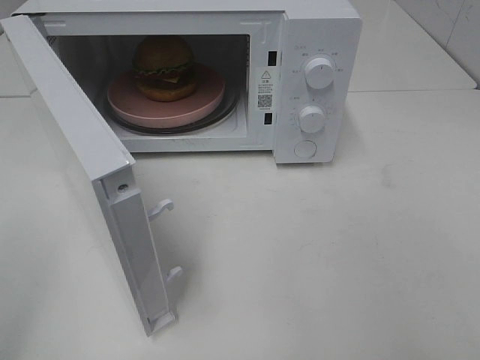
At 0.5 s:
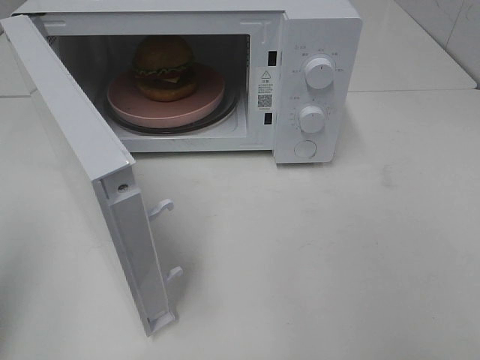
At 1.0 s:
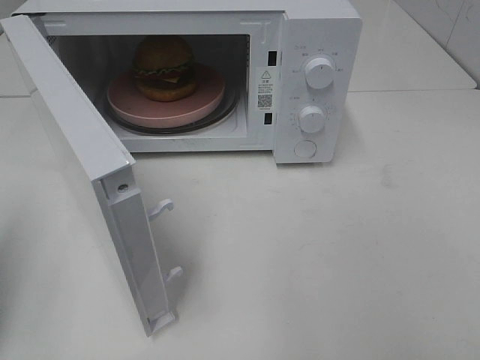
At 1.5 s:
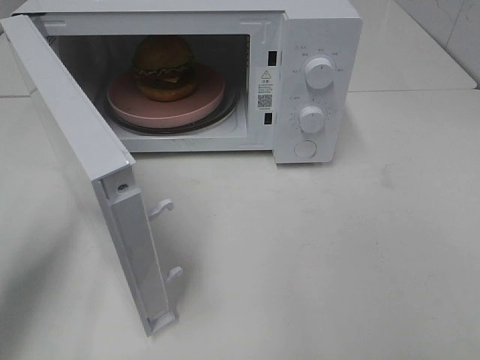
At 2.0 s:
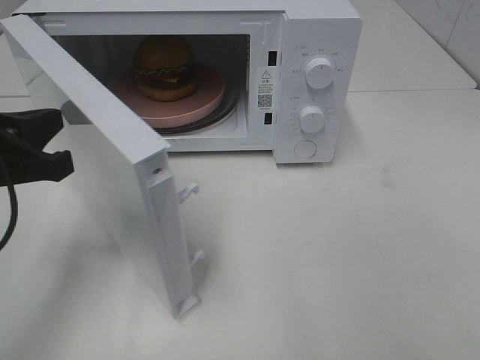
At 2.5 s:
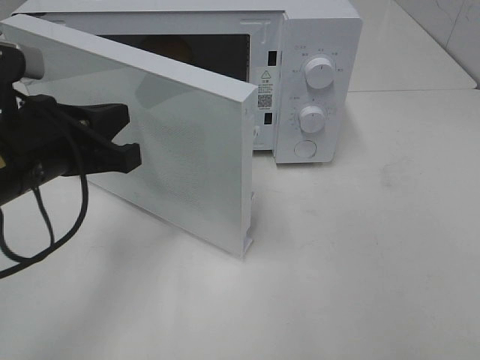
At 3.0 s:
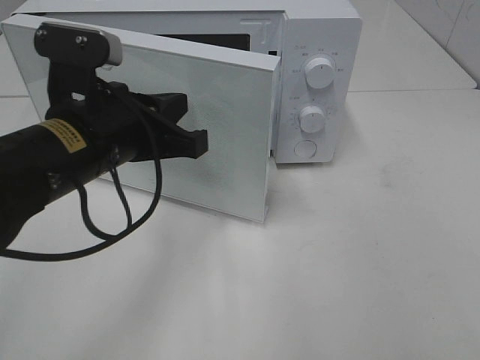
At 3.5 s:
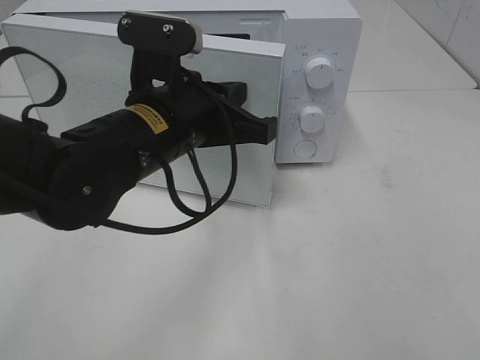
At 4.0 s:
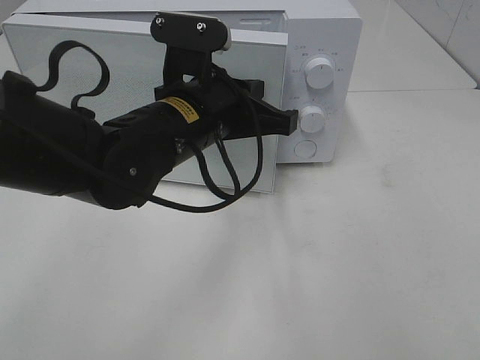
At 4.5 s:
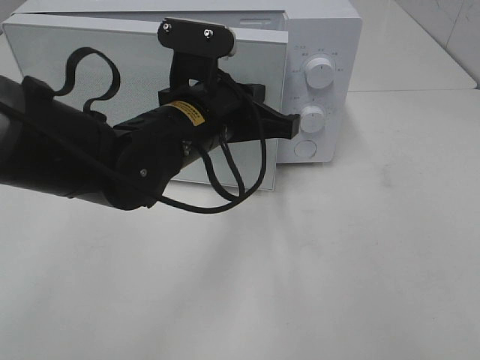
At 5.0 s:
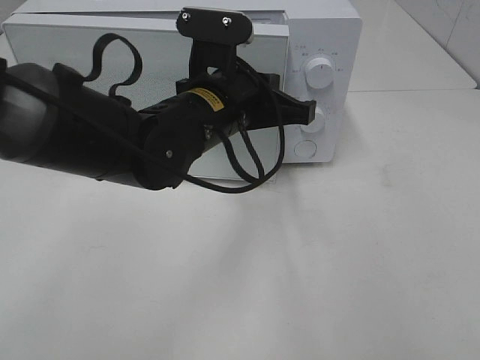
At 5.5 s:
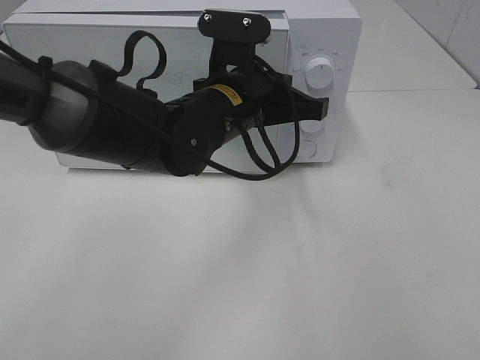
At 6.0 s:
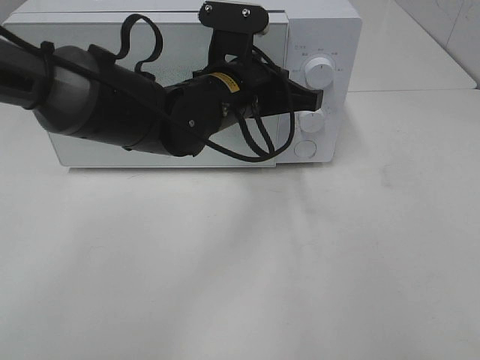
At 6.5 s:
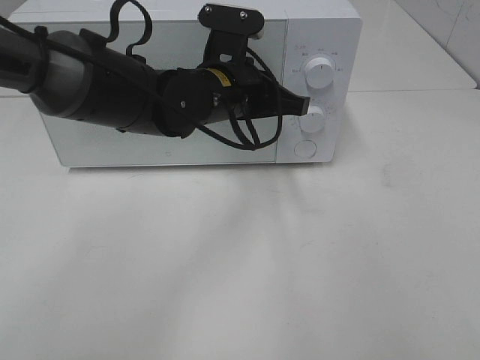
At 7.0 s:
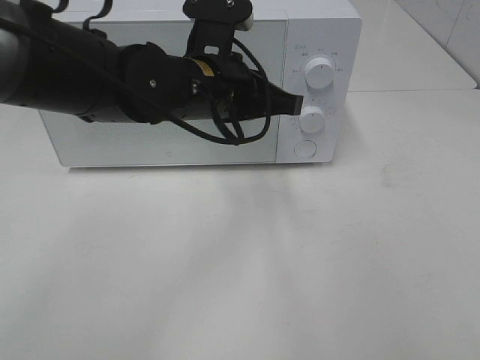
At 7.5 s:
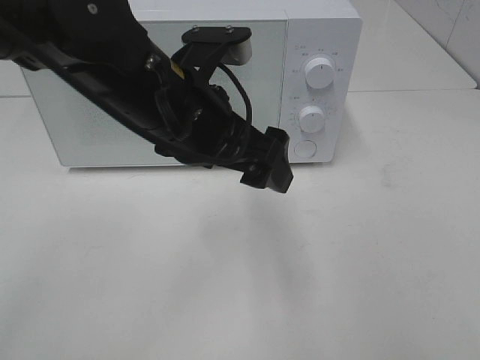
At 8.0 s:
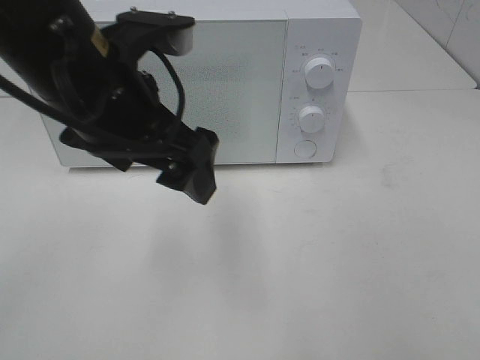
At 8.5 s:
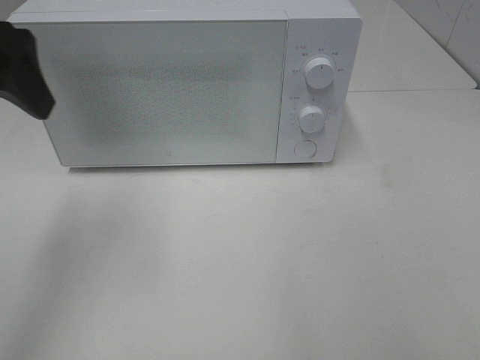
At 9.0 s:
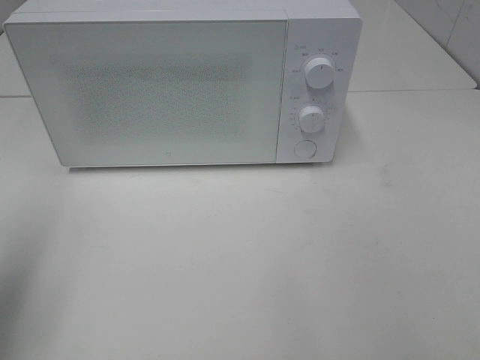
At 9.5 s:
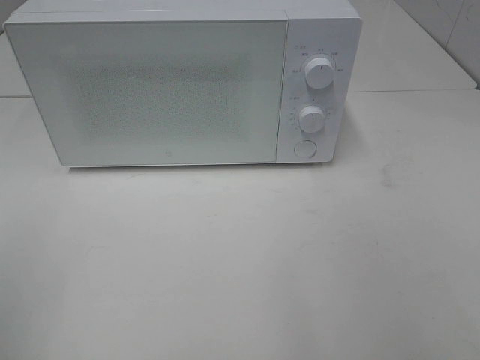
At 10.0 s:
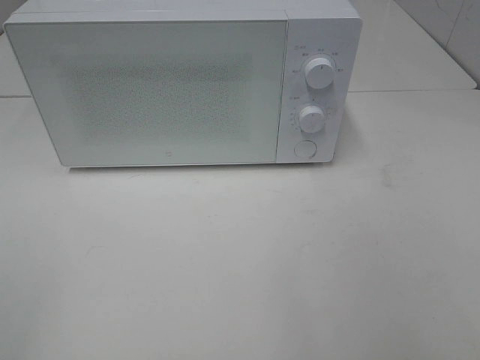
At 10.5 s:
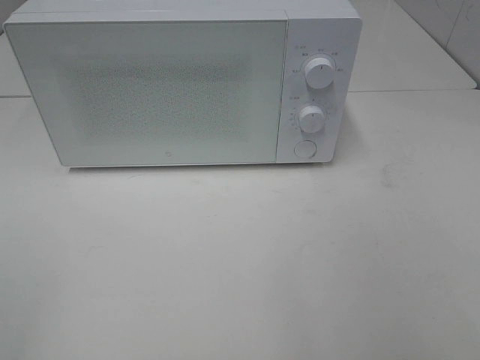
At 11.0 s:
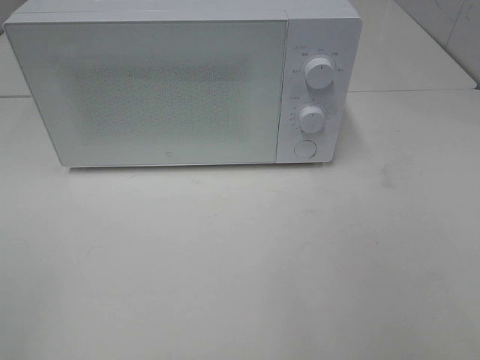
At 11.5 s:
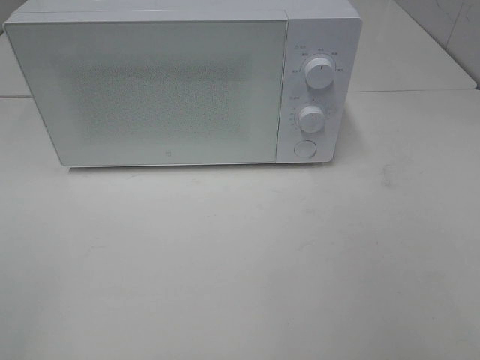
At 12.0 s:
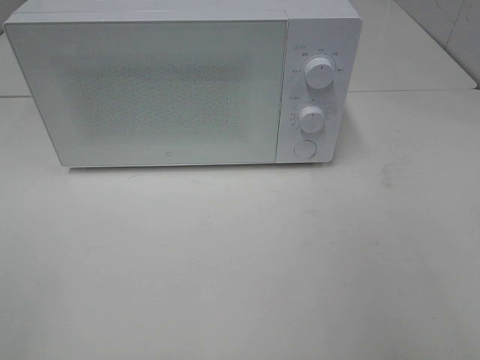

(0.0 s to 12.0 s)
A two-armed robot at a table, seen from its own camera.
Task of the whole recording: Heat the burger.
Step, 0.0 s - 7.0 s: Left hand: close the microwave door.
0.0 s - 2.0 s: The left gripper heads forward, downward and to the right, covering about 20 cm, and closes up.
2.0 s - 4.0 s: The left gripper heads to the right, covering about 20 cm.
4.0 s - 6.0 s: The left gripper goes approximately 5 cm forward.
6.0 s - 8.0 s: The left gripper moves to the left, backward and upward, about 15 cm, and opens up.
8.0 s - 10.0 s: The left gripper heads backward and to the left, covering approximately 35 cm.

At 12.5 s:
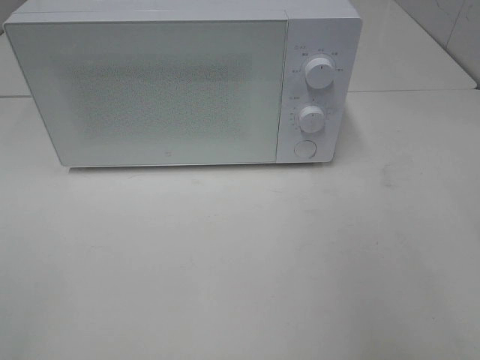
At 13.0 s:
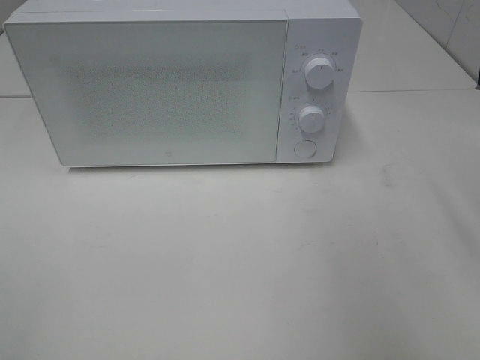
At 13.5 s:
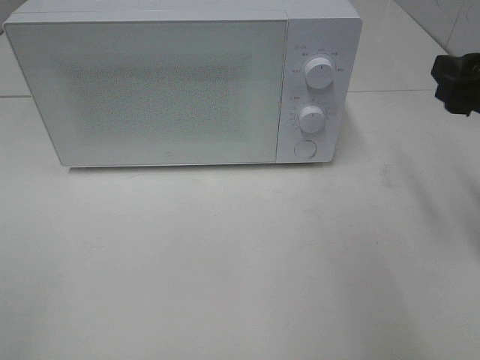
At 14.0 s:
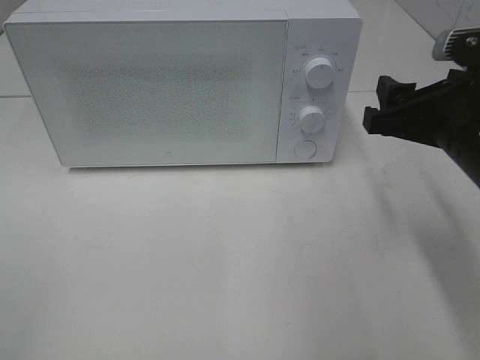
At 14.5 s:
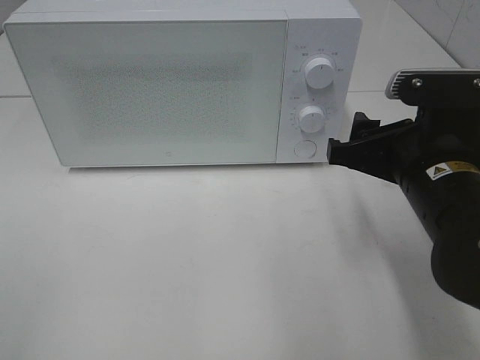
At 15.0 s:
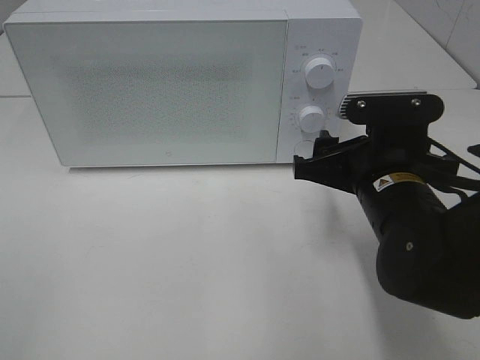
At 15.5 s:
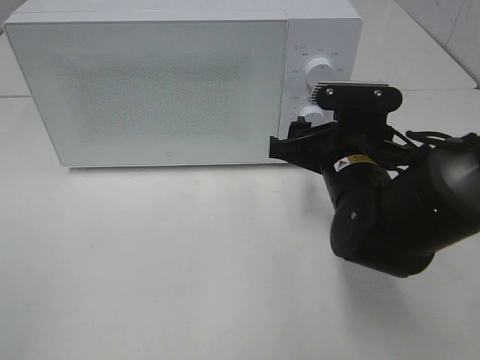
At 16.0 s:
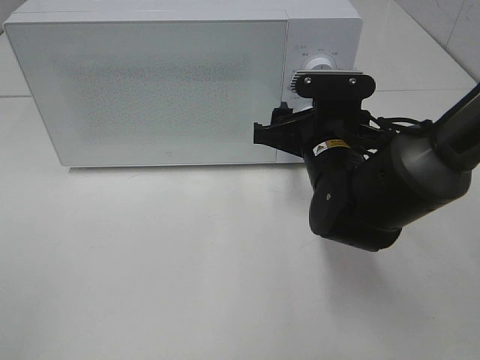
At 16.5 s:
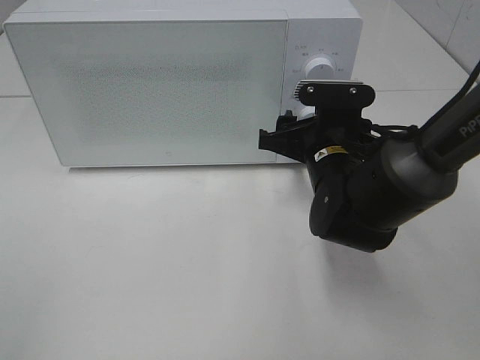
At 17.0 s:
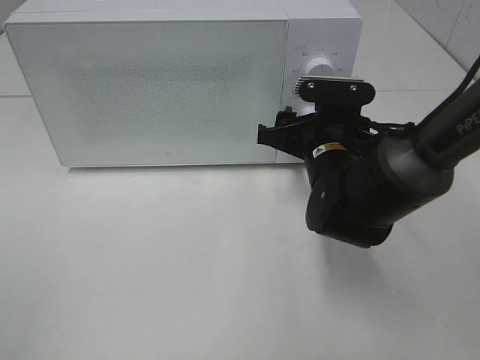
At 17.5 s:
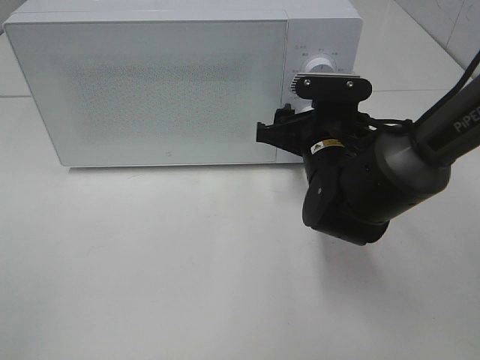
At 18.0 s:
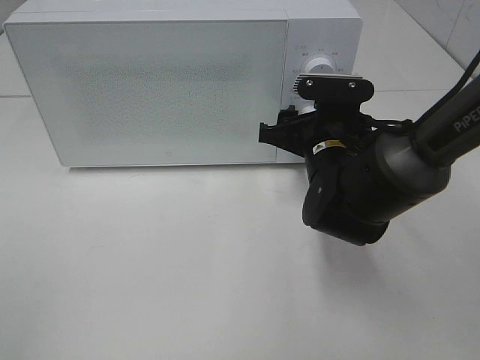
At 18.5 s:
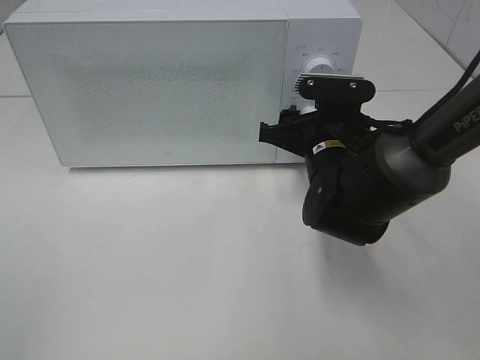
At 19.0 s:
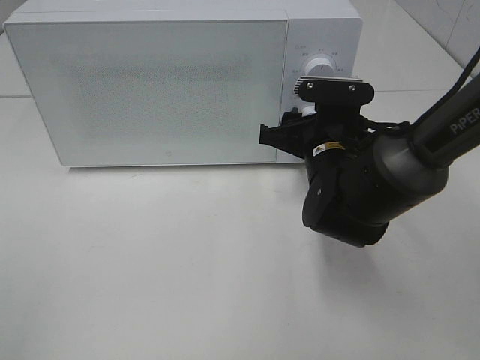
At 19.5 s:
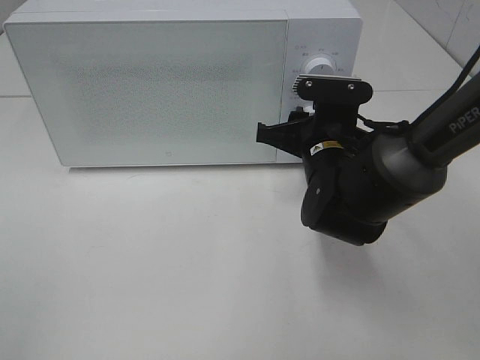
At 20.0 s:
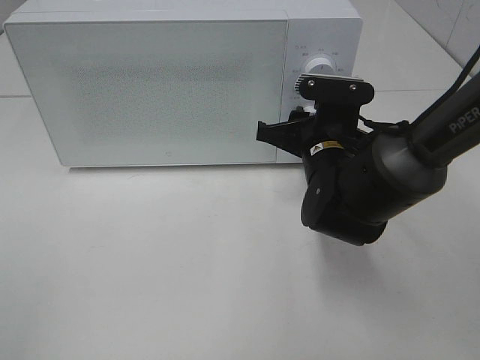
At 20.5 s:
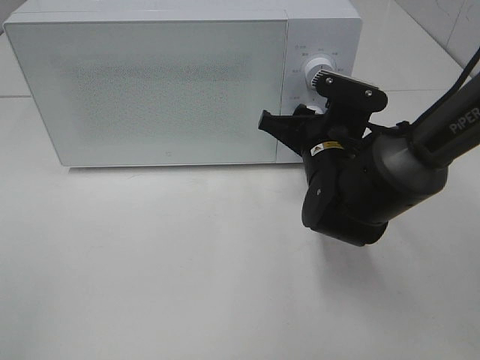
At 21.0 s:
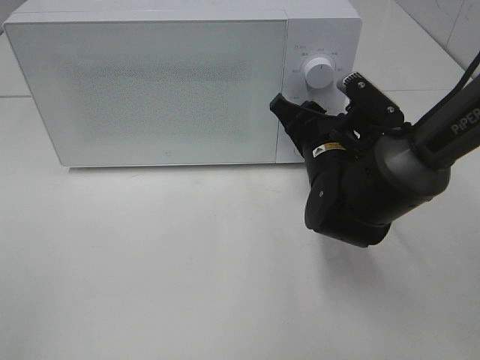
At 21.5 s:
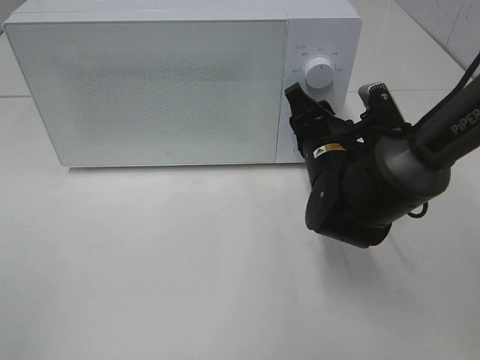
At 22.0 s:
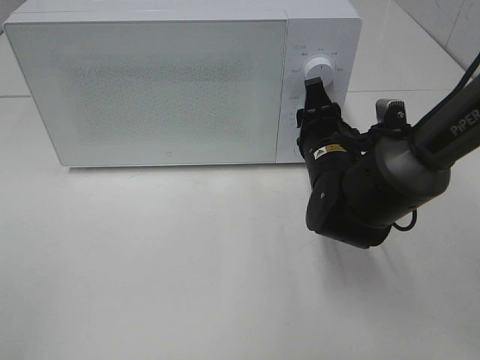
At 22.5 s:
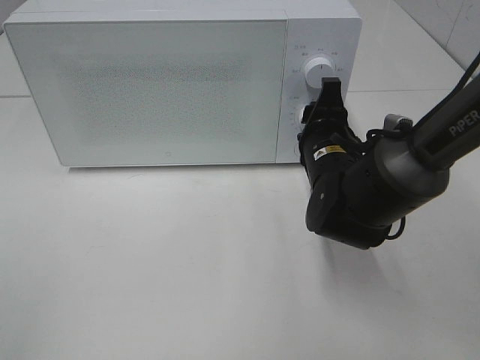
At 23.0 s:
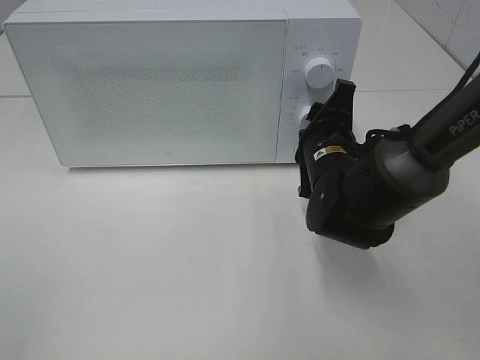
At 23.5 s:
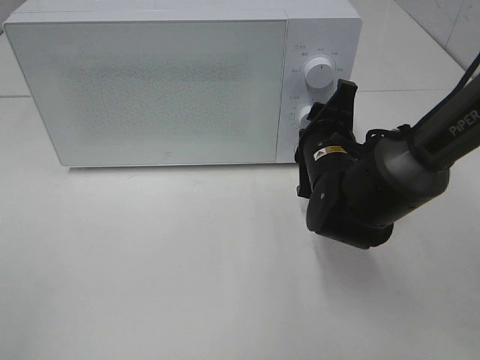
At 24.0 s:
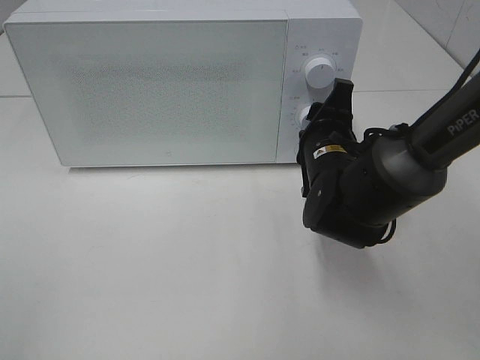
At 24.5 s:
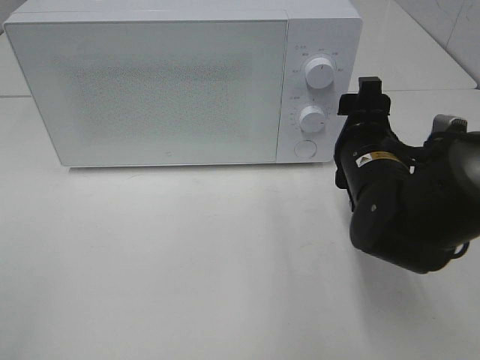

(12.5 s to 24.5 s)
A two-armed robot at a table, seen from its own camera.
Task of the whole recording: Heat the burger.
12.5 s - 14.5 s: The right gripper travels downward, to the left and forward by about 20 cm.
14.5 s - 16.5 s: The right gripper is displaced forward, downward and to the left by about 15 cm.
16.5 s - 18.5 s: The two grippers keep their place.
18.5 s - 20.5 s: The grippers make only small movements.
22.5 s - 24.5 s: The right gripper ends up approximately 5 cm from where it was.

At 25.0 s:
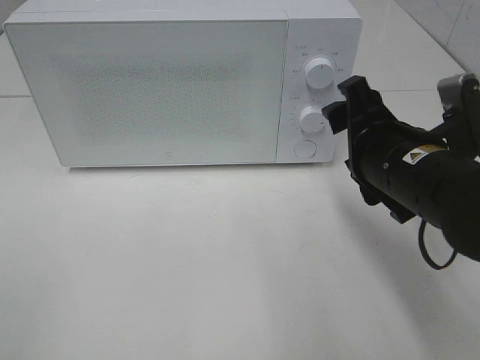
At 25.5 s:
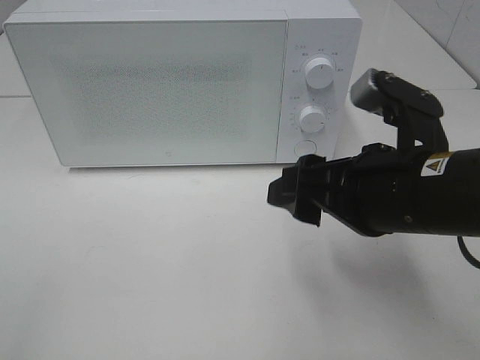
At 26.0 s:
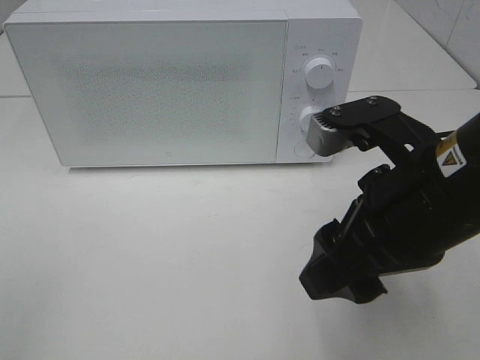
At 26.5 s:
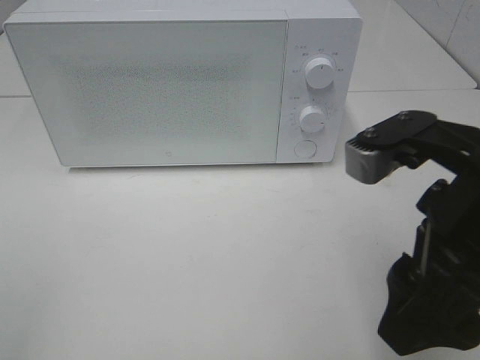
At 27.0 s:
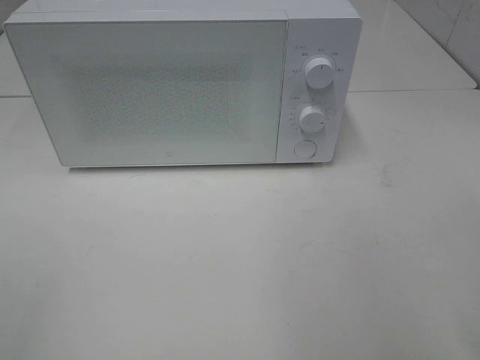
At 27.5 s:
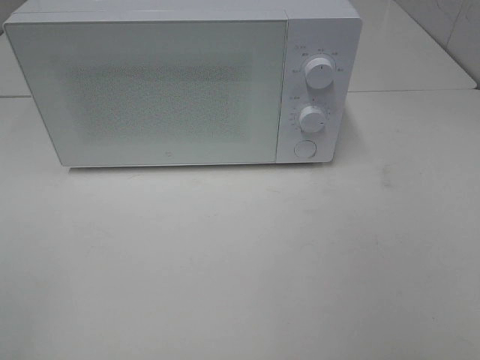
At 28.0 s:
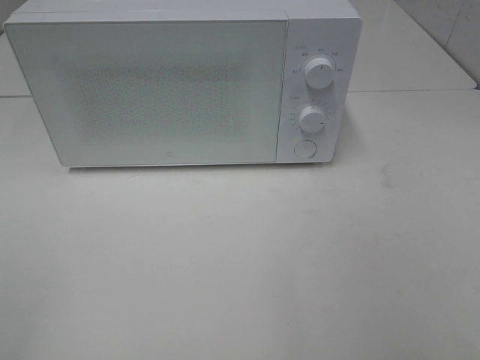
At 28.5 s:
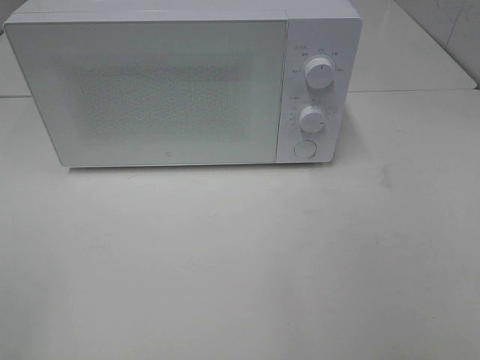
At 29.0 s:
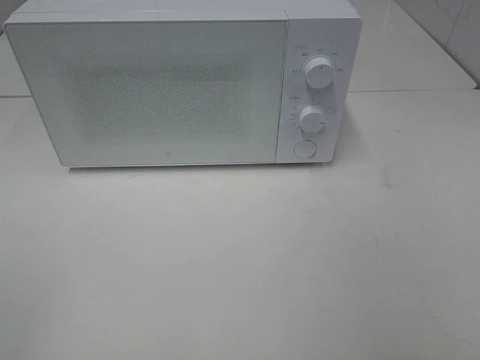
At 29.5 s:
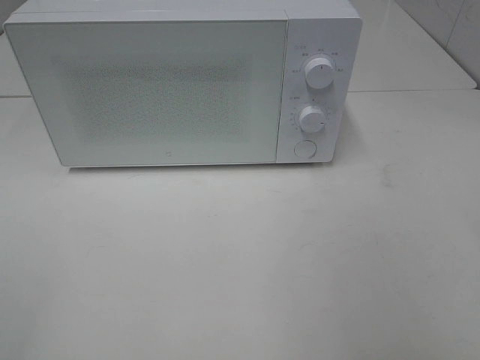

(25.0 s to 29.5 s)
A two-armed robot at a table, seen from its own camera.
Task of the whole recording: Heat the burger.
25.0 s - 27.0 s: The right gripper heads backward, upward and to the right, covering some 20 cm.
